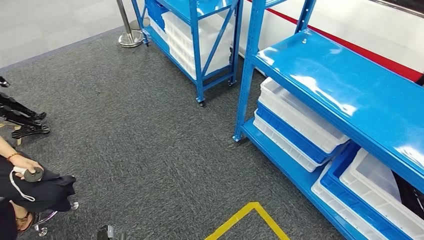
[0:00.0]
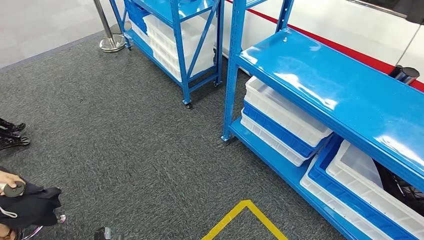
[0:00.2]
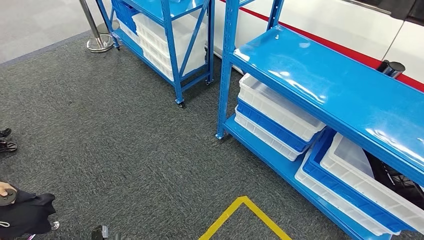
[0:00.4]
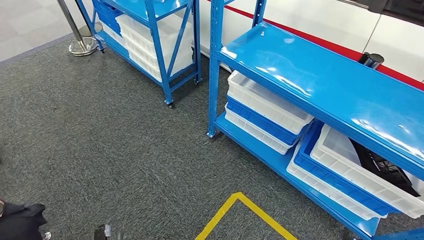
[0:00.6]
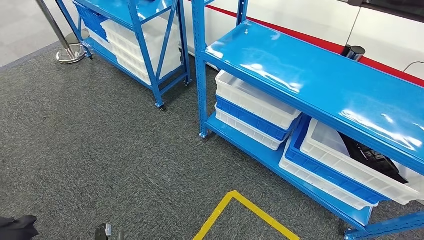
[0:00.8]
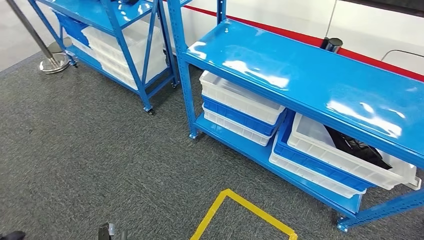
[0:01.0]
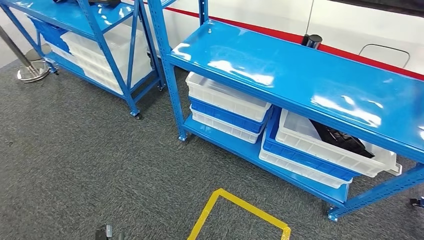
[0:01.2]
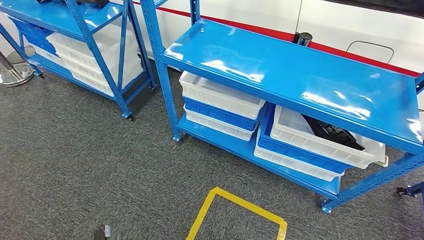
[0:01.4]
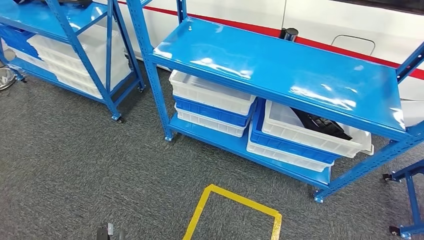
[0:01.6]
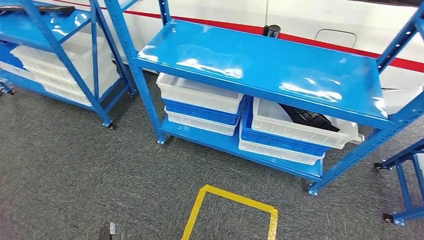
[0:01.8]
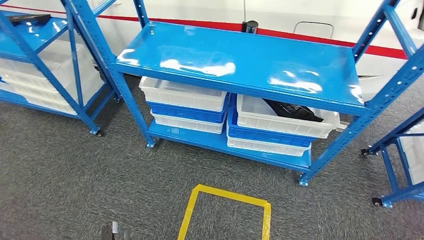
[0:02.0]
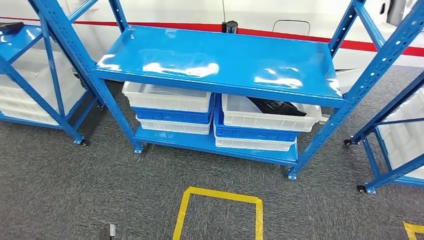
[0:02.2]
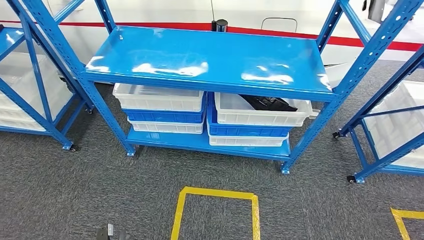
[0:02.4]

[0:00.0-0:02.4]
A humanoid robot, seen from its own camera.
Step, 0:00.0 to 0:02.4: Move to the initial position of the shelf.

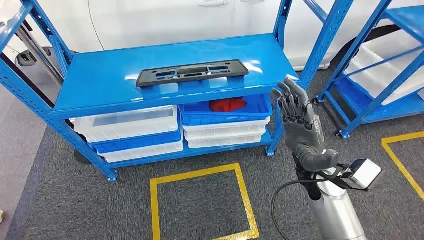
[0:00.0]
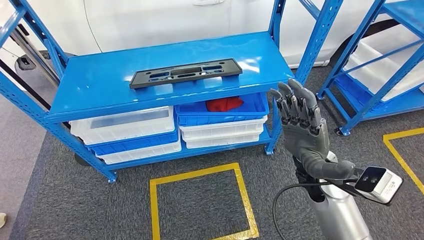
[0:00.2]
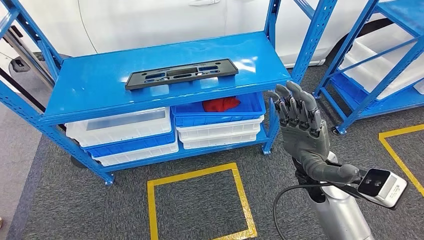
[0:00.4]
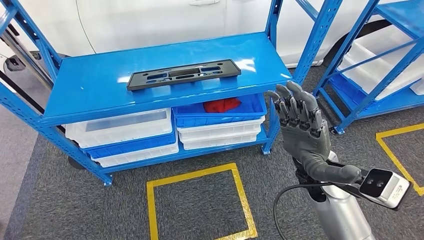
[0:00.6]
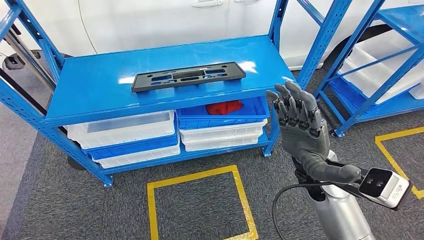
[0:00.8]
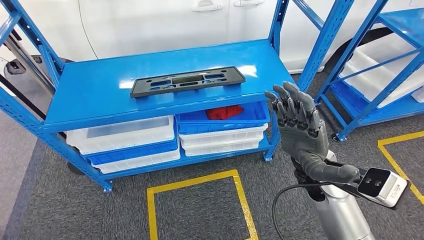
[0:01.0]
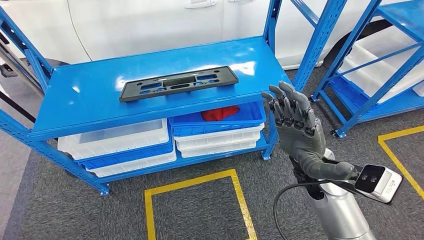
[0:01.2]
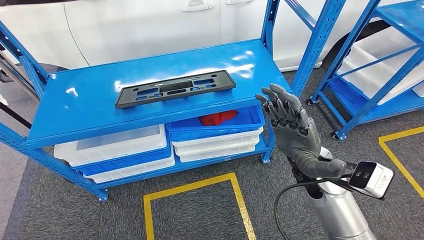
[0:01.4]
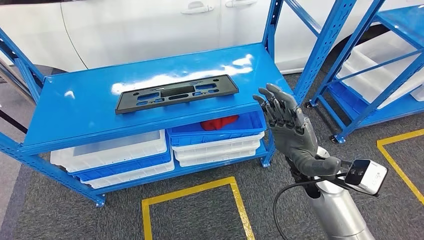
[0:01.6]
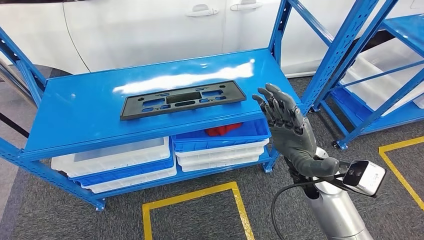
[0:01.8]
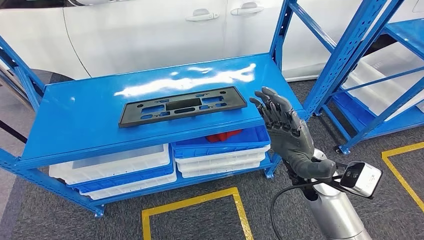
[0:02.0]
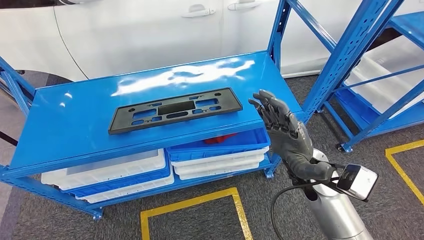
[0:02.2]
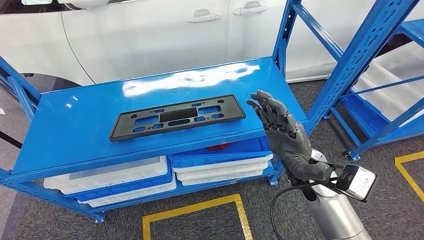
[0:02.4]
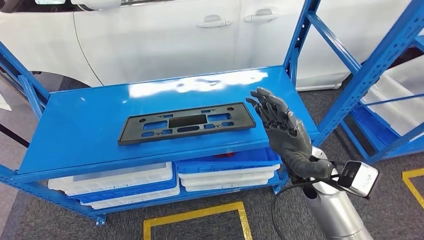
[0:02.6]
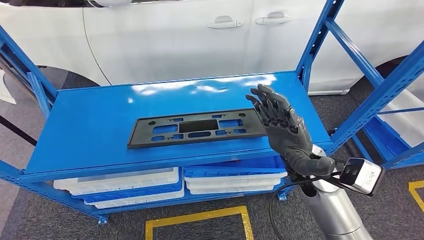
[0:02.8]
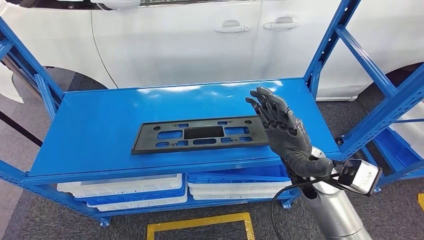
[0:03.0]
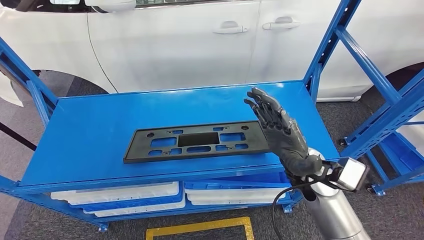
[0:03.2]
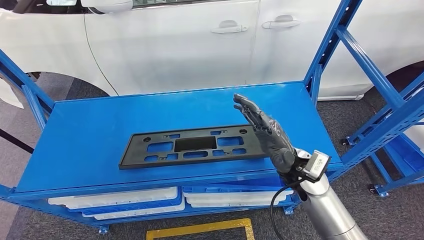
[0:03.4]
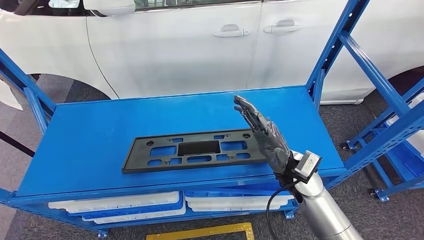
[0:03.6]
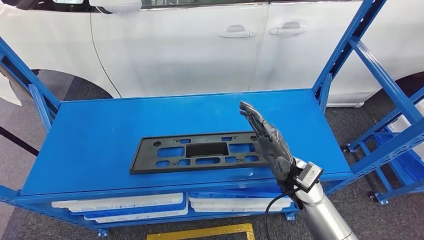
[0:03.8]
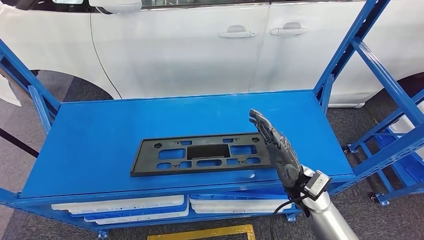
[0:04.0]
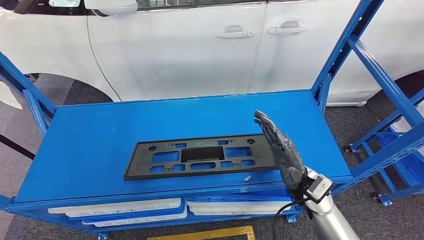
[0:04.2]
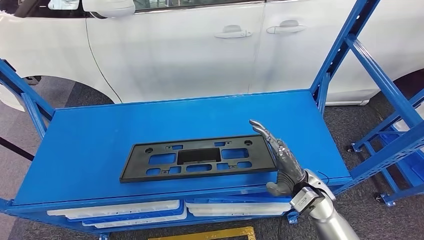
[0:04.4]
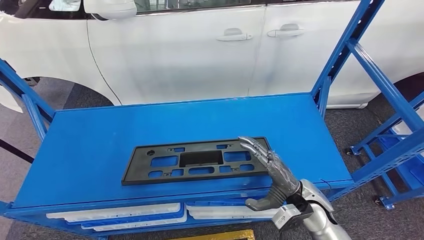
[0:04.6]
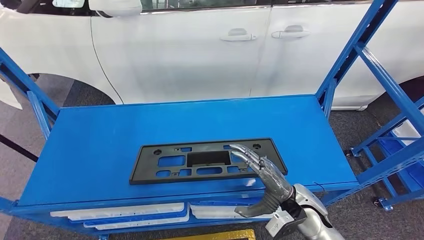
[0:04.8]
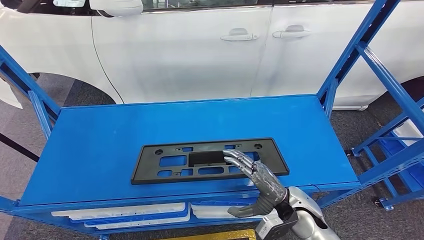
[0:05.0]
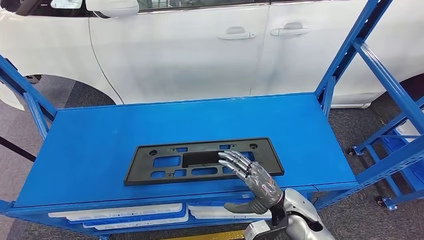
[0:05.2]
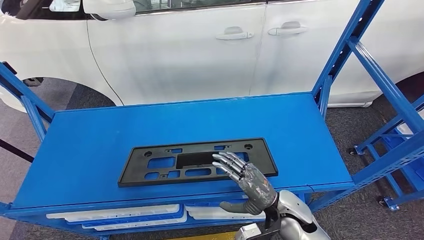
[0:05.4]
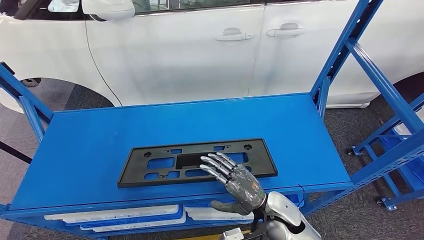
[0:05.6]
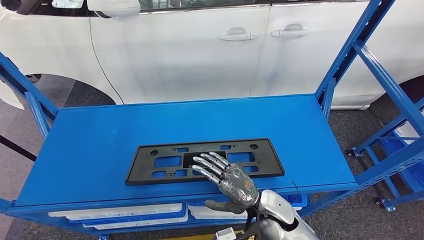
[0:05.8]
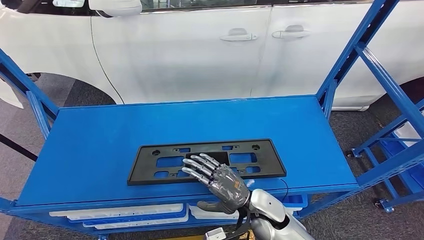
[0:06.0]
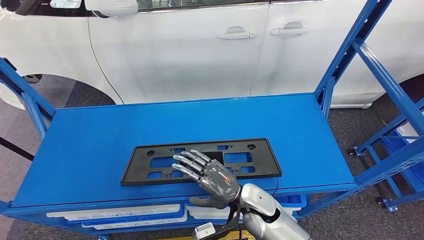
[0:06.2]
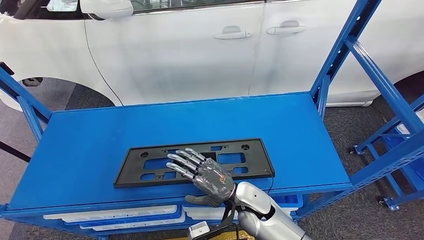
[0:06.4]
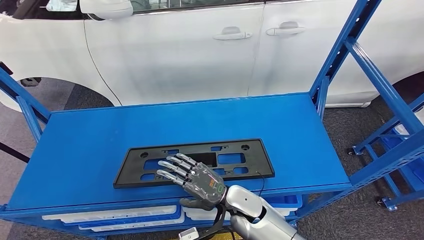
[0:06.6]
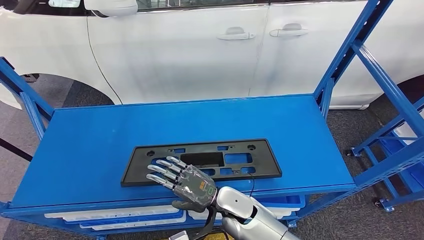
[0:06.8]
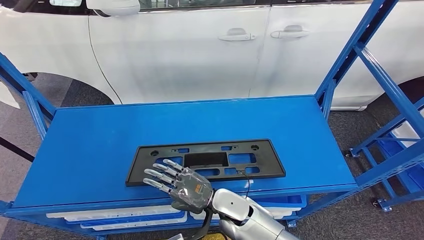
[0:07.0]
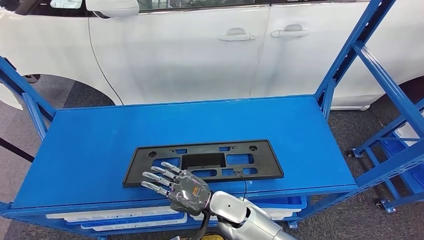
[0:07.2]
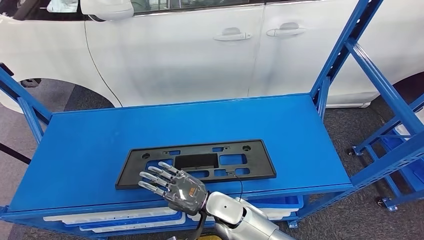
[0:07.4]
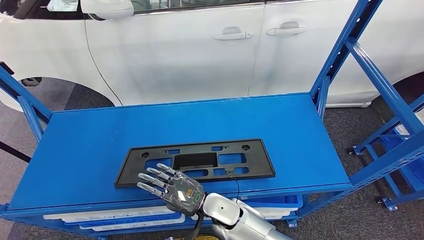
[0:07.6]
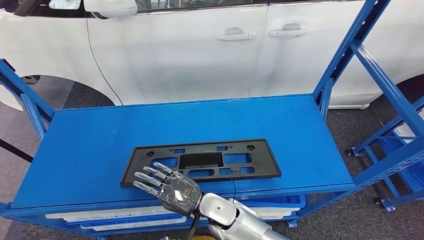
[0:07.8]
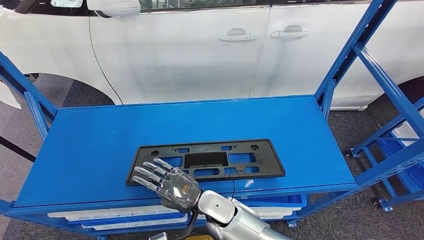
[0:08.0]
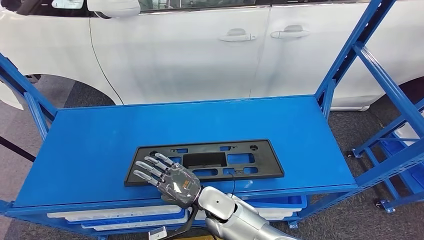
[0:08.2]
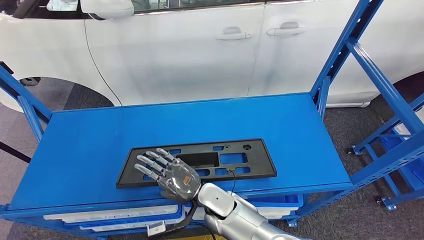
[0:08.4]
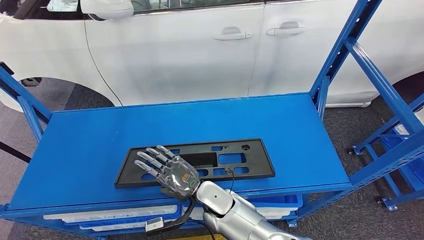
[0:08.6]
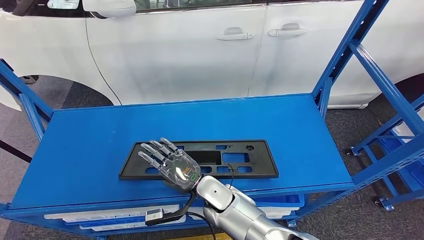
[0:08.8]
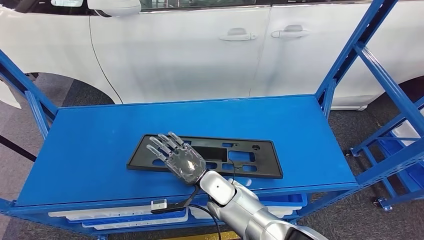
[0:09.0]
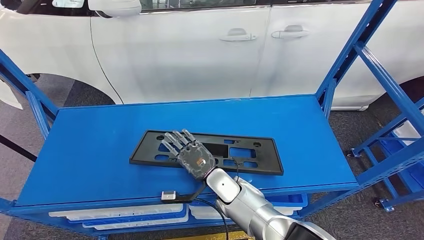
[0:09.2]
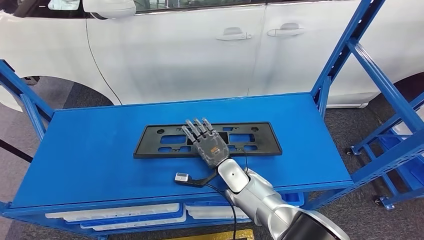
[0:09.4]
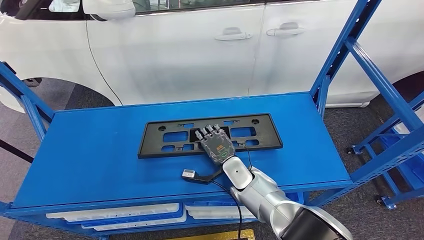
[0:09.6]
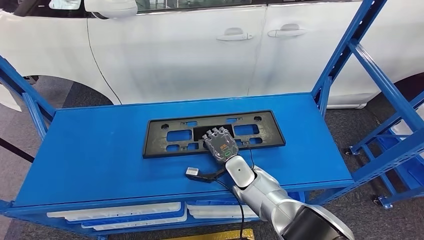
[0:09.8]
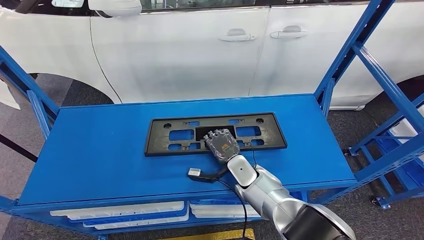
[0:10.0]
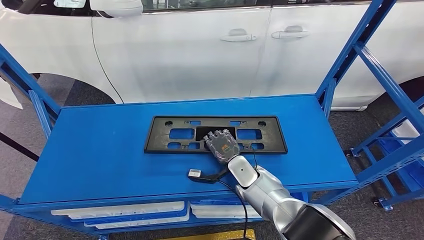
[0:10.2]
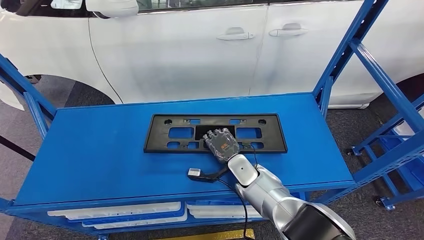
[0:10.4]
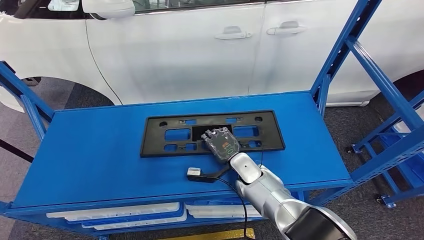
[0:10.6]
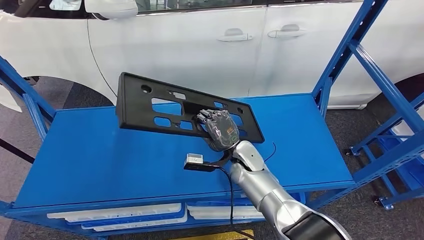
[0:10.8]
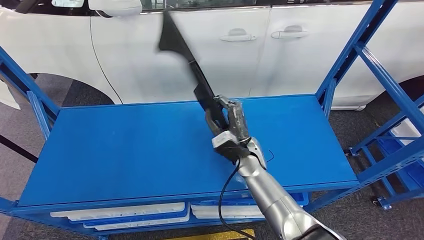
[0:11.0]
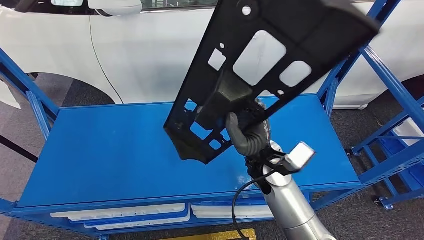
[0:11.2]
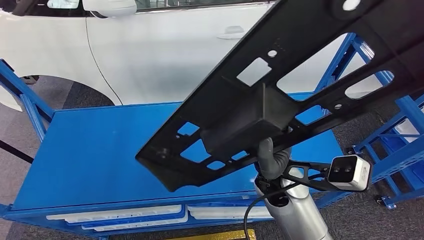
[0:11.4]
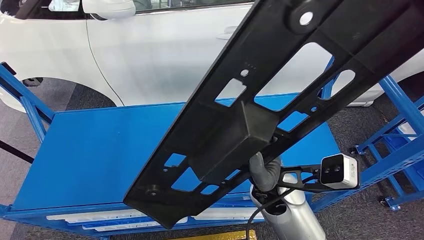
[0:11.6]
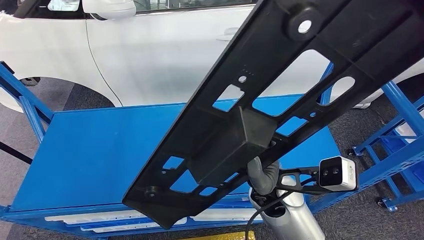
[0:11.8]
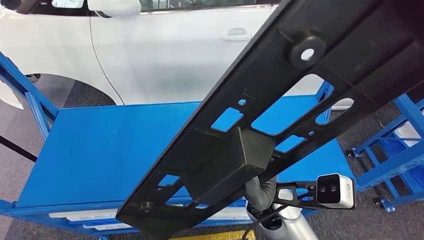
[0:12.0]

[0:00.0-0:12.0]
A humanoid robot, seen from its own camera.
Step, 0:00.0 to 0:11.4: Pick up the large material from the shelf.

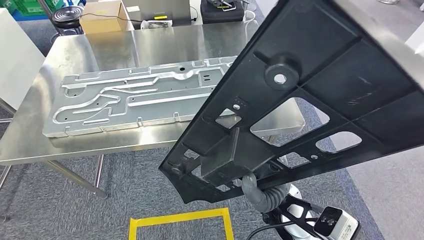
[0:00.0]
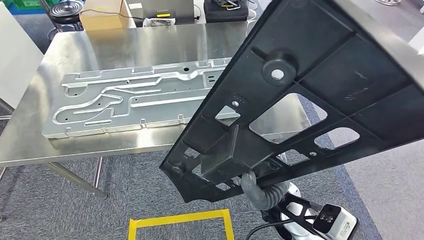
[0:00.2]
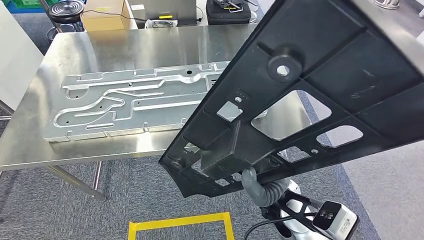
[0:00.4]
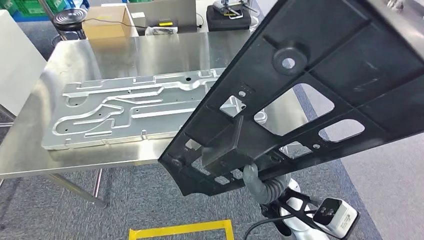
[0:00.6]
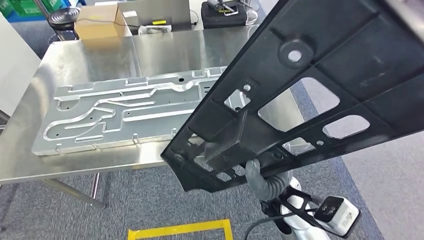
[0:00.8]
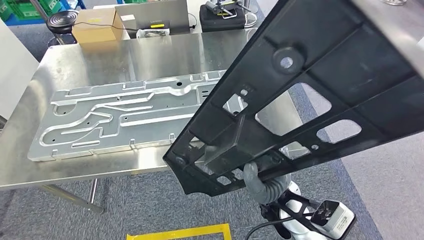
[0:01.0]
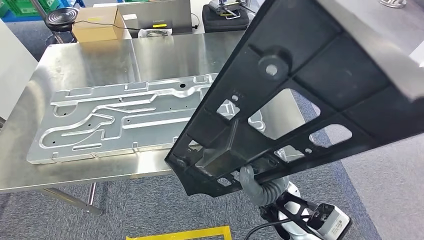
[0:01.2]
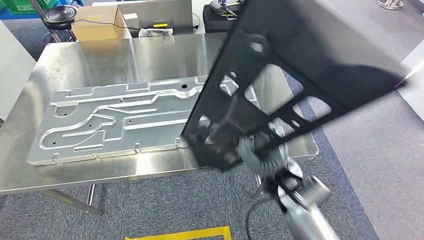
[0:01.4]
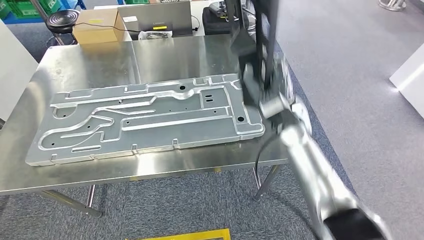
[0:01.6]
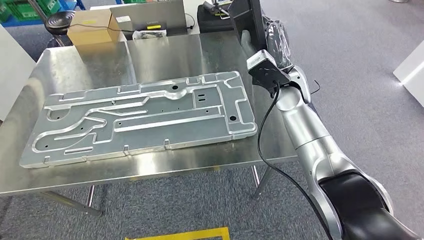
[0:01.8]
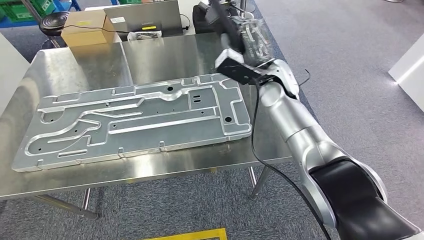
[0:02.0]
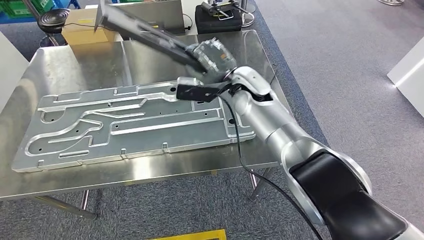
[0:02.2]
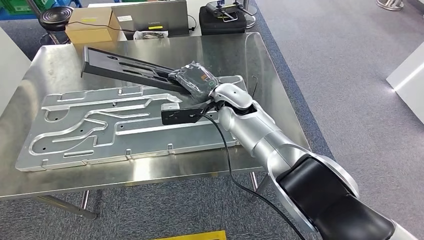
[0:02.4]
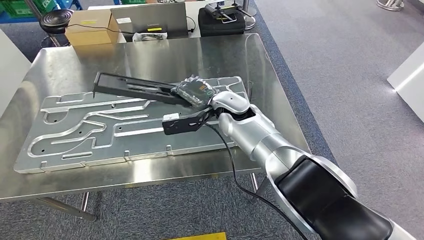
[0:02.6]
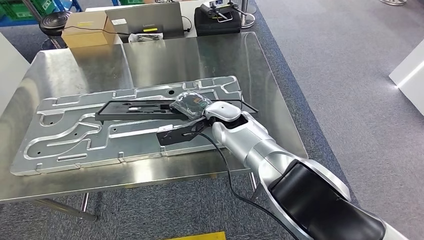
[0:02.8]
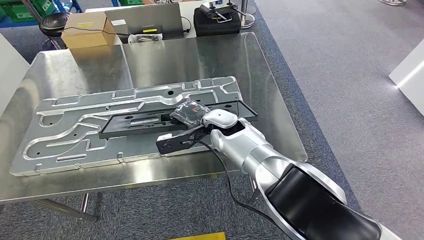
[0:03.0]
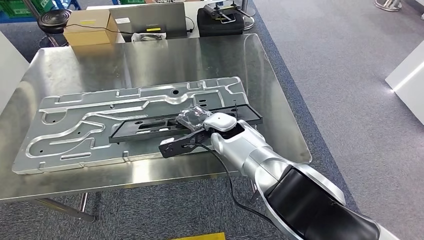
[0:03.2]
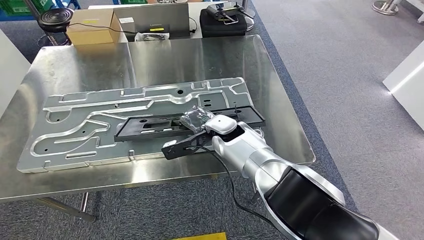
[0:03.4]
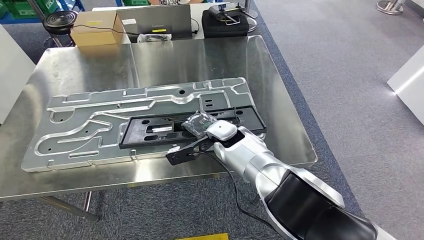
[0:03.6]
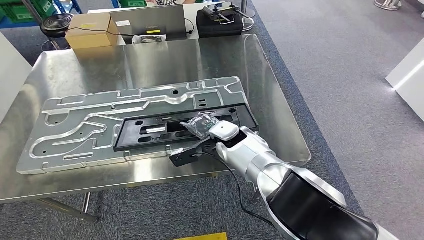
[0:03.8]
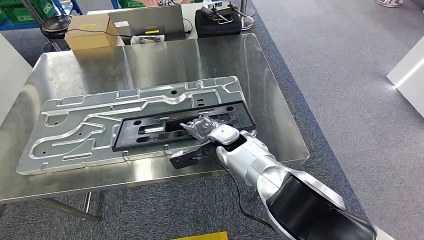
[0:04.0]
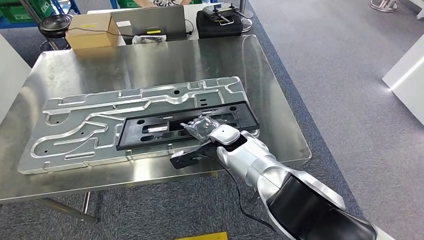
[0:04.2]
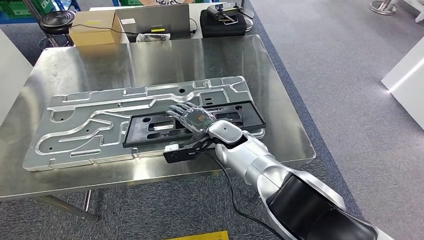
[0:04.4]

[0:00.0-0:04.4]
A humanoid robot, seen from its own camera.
Step, 0:00.0 to 0:02.8: Move the large material to the front of the workbench.
